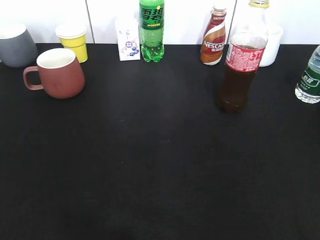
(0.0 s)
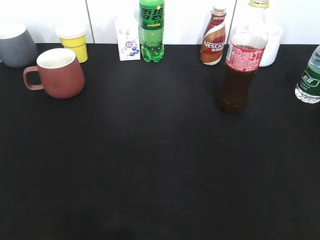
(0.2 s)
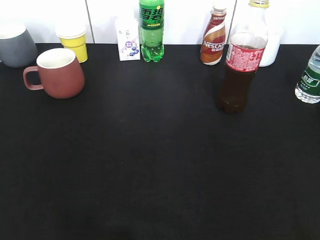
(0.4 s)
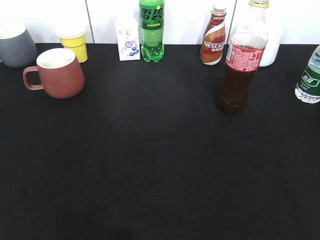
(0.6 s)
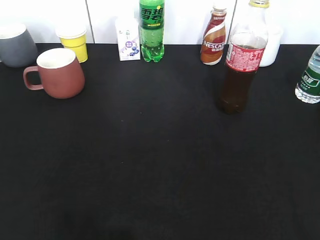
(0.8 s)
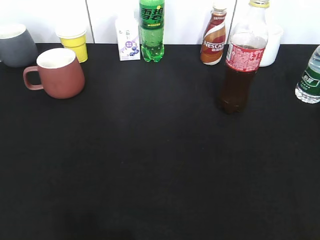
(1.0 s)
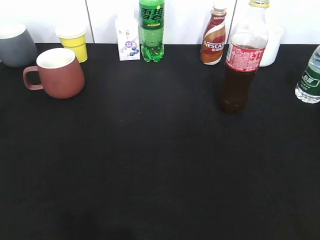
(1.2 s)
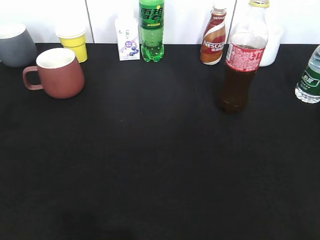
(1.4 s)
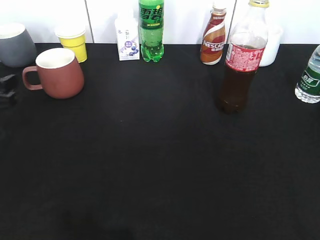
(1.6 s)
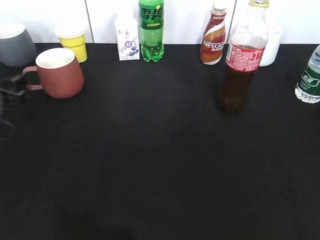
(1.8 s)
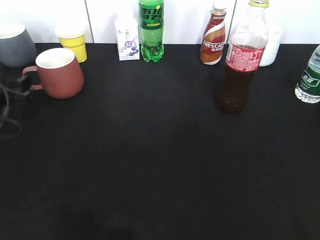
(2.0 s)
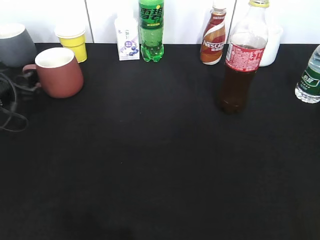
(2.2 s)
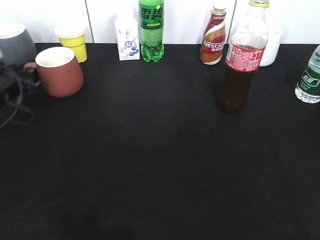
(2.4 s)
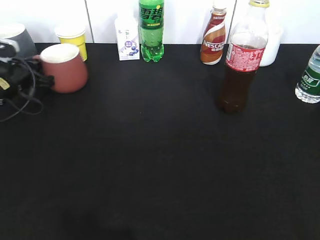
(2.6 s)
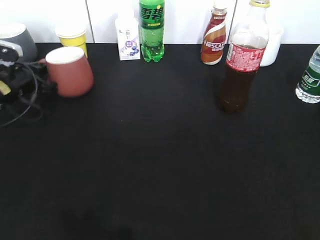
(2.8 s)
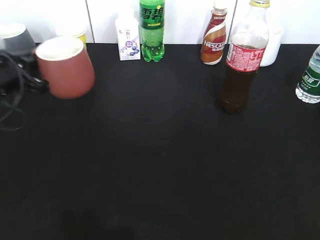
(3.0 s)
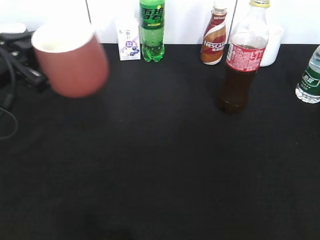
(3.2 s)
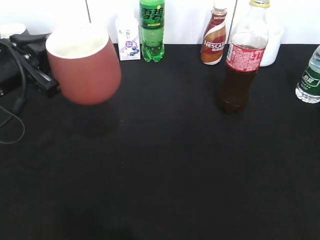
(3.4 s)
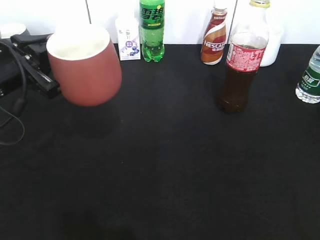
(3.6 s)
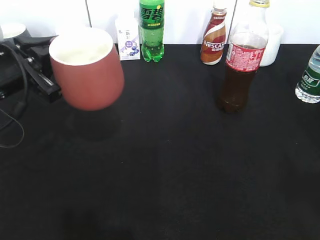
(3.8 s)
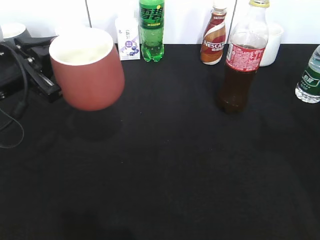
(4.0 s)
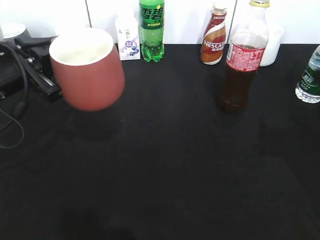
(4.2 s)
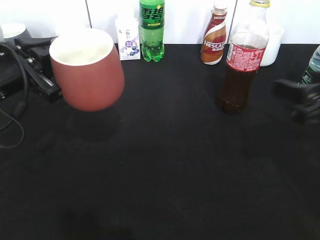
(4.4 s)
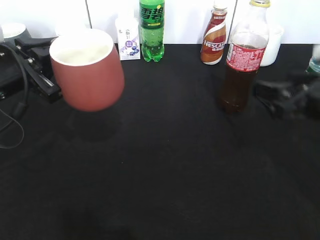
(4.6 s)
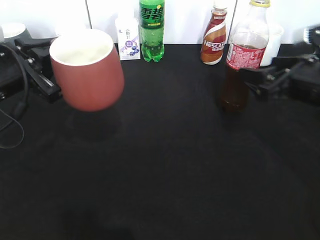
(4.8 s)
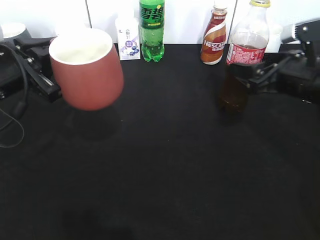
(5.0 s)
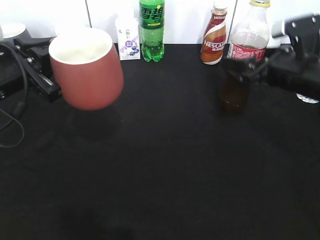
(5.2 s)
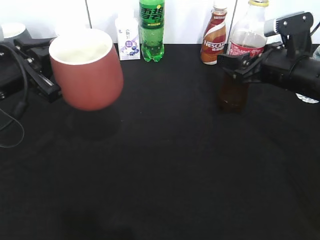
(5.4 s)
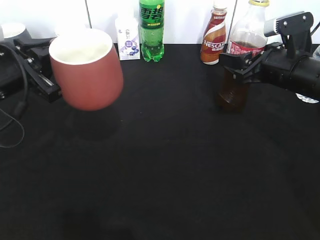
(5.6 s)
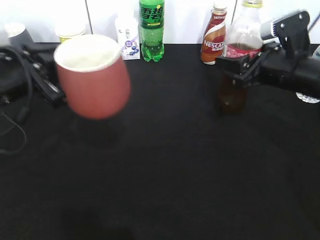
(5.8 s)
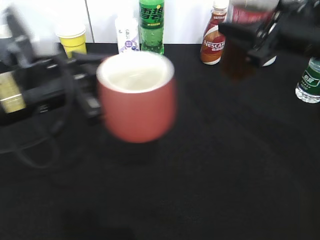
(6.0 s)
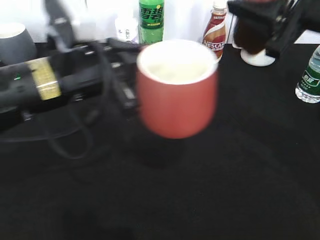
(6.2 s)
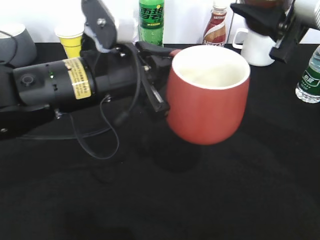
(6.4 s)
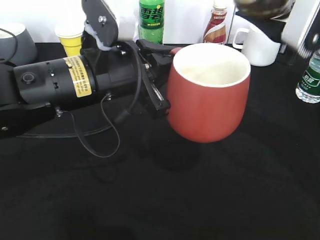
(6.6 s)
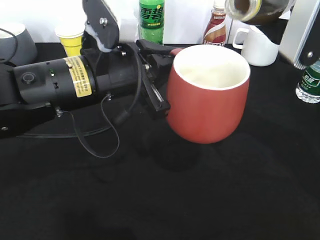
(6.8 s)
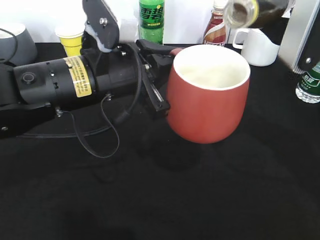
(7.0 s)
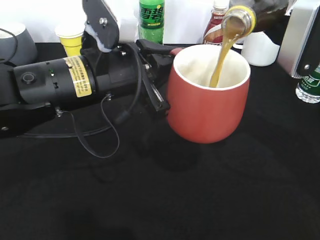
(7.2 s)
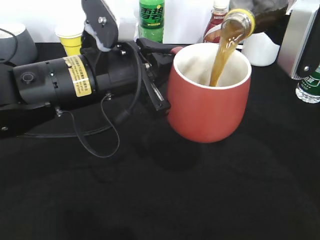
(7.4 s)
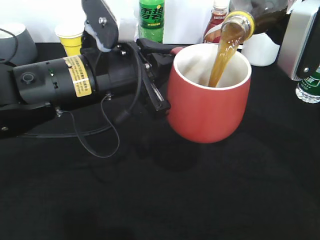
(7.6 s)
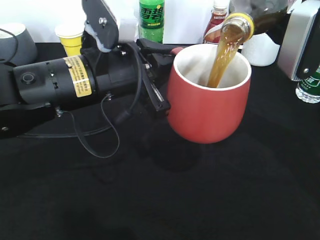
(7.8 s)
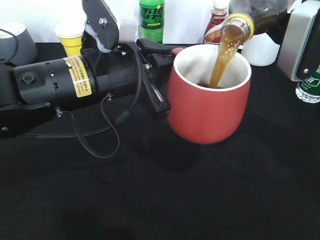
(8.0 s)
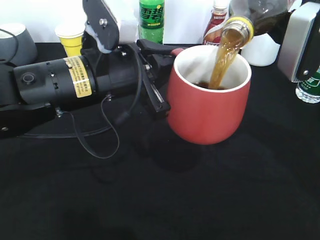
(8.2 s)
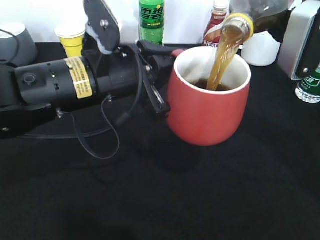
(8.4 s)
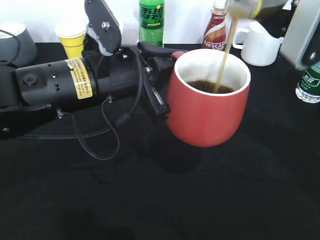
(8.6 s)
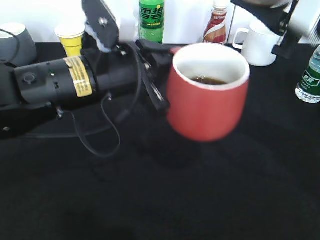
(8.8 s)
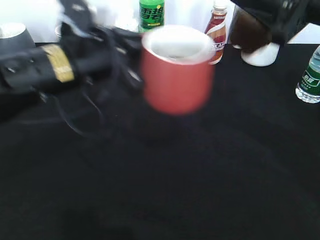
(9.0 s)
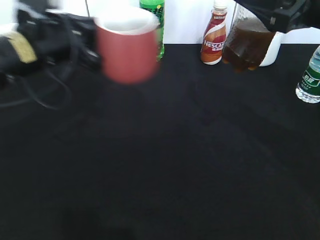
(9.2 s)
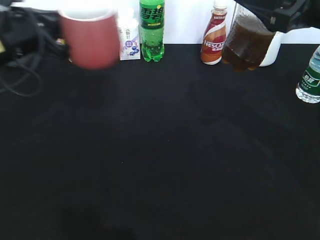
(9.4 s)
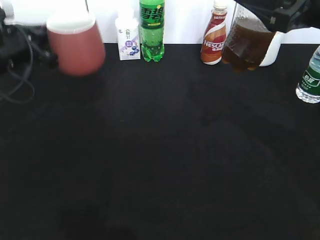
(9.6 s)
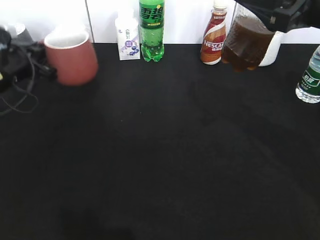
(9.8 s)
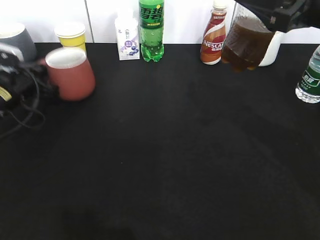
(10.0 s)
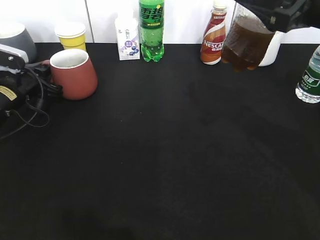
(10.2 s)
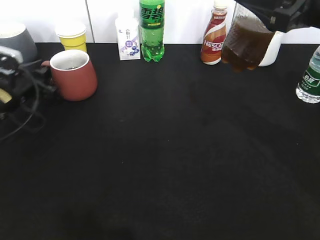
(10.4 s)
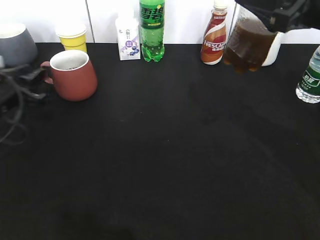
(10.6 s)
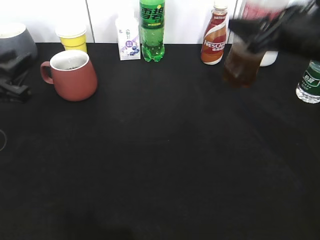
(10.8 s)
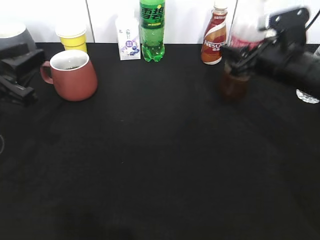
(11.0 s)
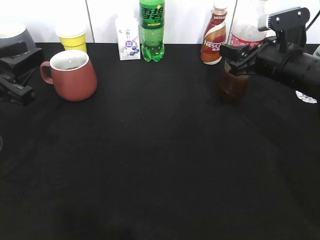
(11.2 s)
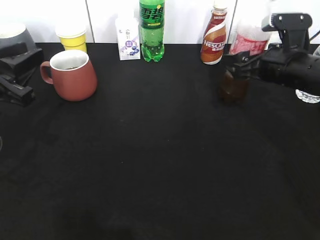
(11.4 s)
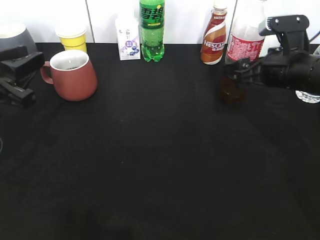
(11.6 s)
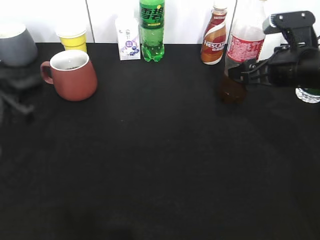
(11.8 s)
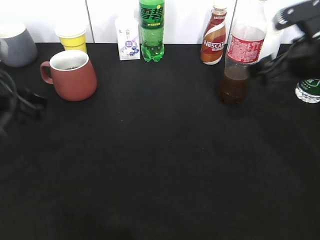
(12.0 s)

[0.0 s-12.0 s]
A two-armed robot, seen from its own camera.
Step, 0.8 to 2.6 s: Grasp the red cup with left gripper.
Step, 2.8 to 4.0 s: Lift the red cup with left gripper.
Step, 4.2 to 5.6 s: Grasp the bottle with cola with right gripper.
Step, 5.8 to 8.6 s: Pour the cola from bottle to cup with right gripper.
Step, 8.8 to 11.8 s: Place the cola bottle on the table with right gripper.
0.0 to 1.6 s: The left gripper goes some 30 cm forward and downward, and opens up.
1.6 to 3.0 s: The left gripper closes.
3.0 to 4.4 s: The left gripper goes about 10 cm backward and to the right, while the right gripper shifts some 20 cm forward.
4.4 to 6.0 s: The left gripper heads to the right, covering roughly 5 cm. Meanwhile the right gripper is displaced forward, upward and to the left by about 10 cm, and closes its fingers.
6.0 to 7.6 s: The left gripper moves to the right, roughly 10 cm.
7.6 to 9.0 s: The left gripper shifts by approximately 5 cm.
9.0 to 10.4 s: The left gripper is displaced to the left, downward and forward by some 25 cm, and opens.
10.4 to 12.0 s: The left gripper is displaced backward and upward by approximately 15 cm, while the right gripper moves downward and forward, roughly 10 cm, and opens.

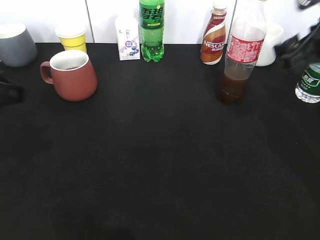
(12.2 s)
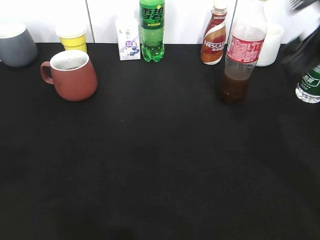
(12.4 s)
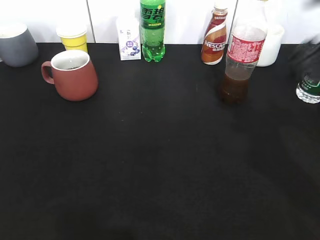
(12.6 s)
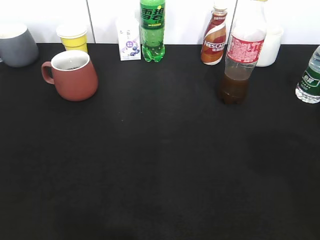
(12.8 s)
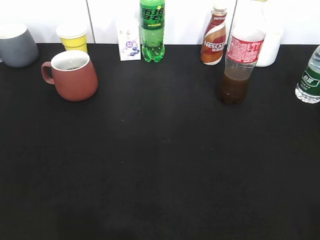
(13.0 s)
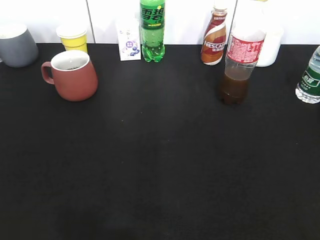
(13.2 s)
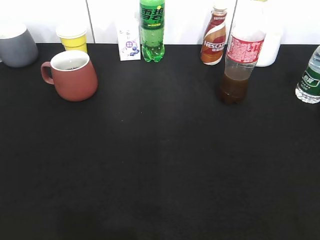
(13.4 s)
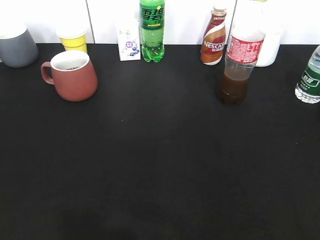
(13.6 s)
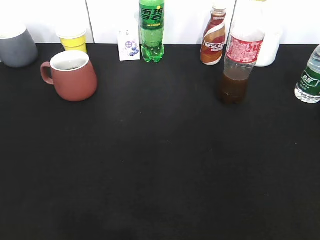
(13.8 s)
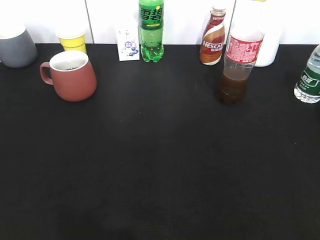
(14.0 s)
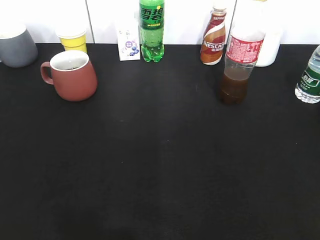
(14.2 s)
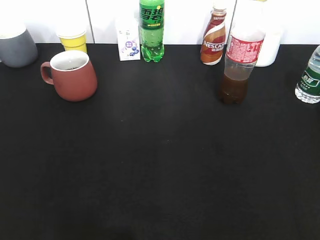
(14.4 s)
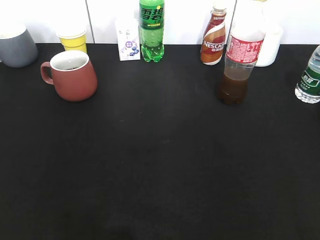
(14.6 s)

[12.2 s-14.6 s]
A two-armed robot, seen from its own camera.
12.2 to 13.4 s: The grippers both shift backward by approximately 25 cm.
